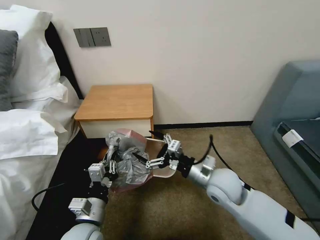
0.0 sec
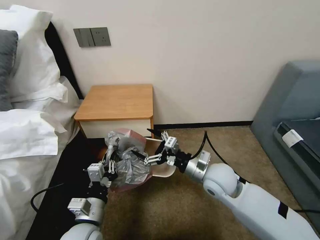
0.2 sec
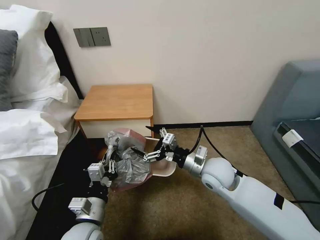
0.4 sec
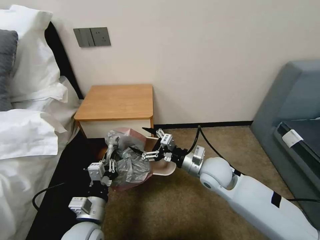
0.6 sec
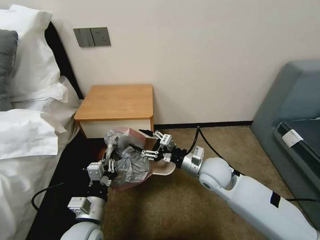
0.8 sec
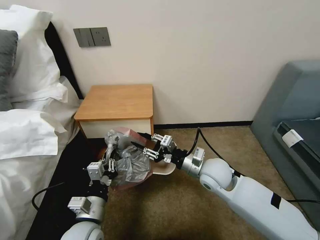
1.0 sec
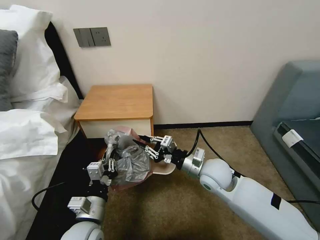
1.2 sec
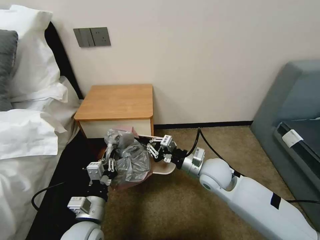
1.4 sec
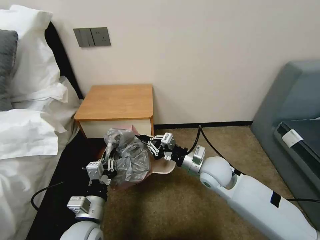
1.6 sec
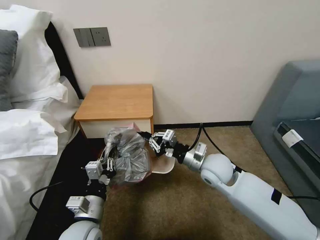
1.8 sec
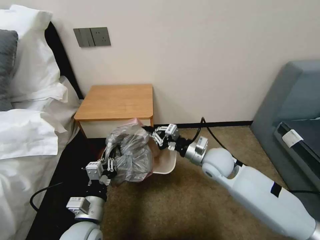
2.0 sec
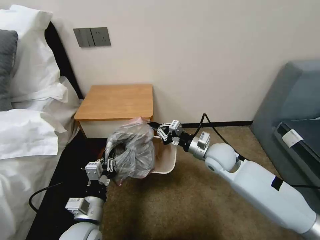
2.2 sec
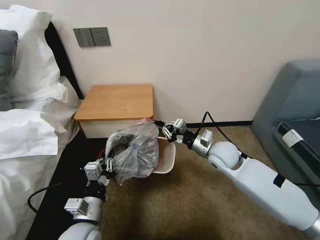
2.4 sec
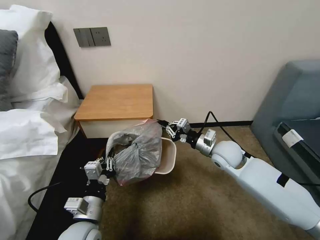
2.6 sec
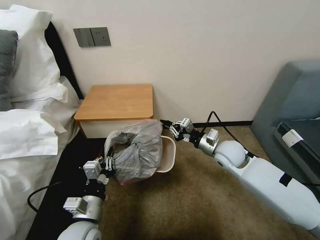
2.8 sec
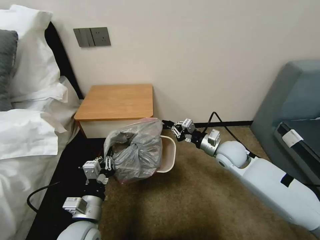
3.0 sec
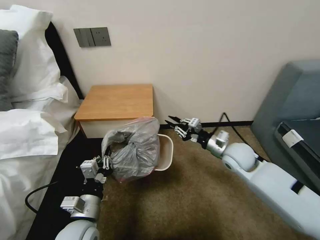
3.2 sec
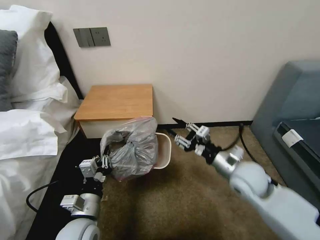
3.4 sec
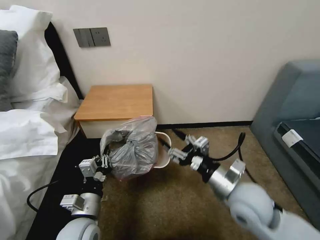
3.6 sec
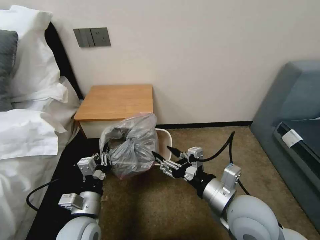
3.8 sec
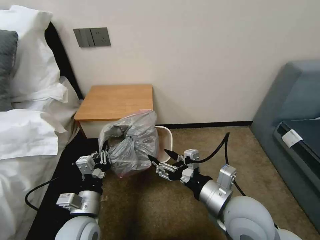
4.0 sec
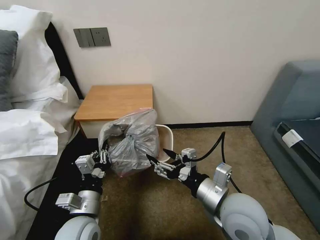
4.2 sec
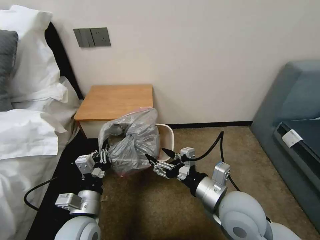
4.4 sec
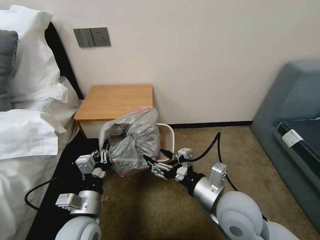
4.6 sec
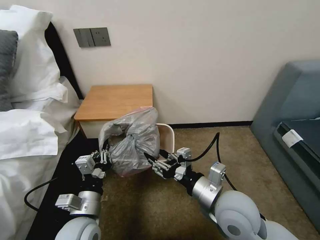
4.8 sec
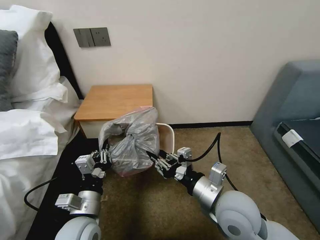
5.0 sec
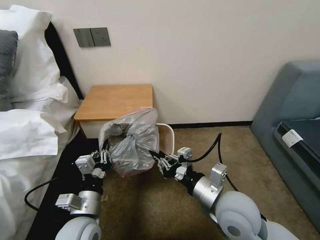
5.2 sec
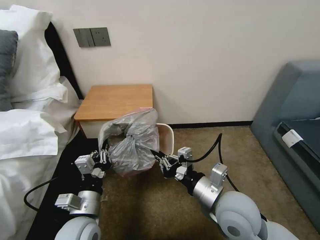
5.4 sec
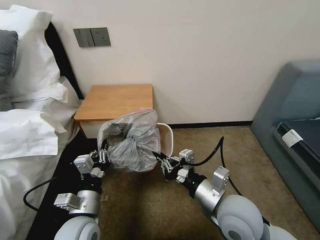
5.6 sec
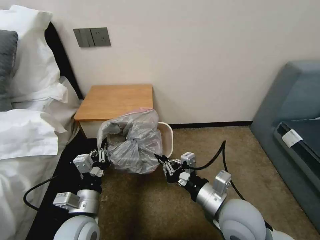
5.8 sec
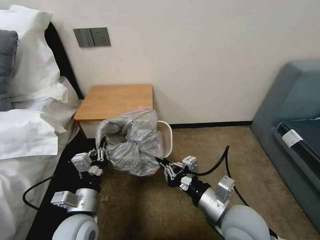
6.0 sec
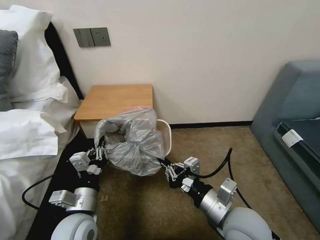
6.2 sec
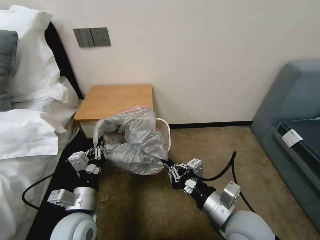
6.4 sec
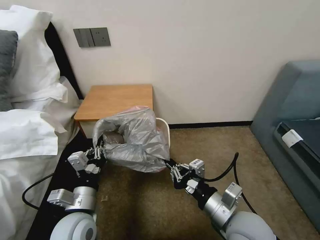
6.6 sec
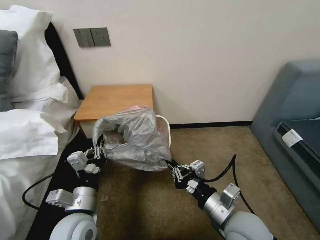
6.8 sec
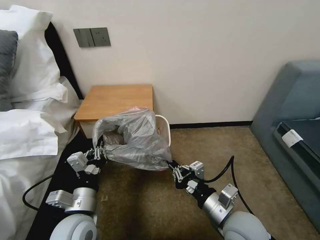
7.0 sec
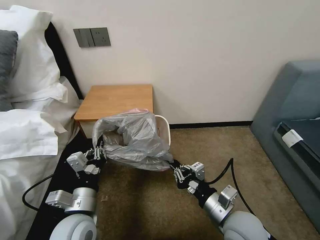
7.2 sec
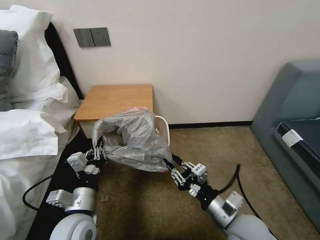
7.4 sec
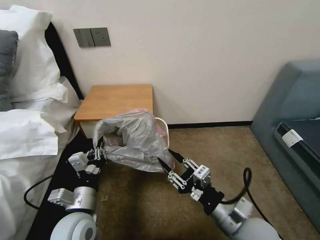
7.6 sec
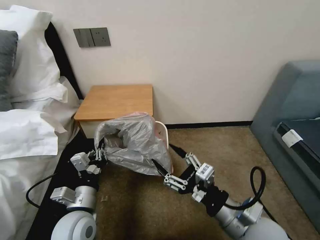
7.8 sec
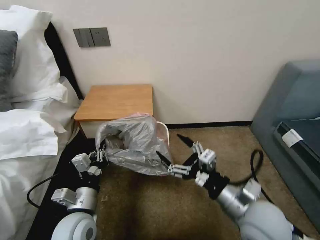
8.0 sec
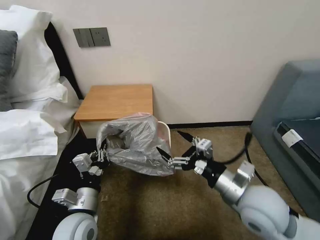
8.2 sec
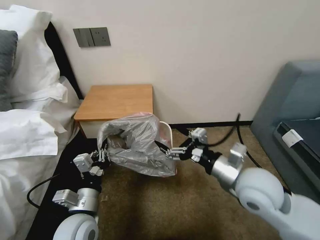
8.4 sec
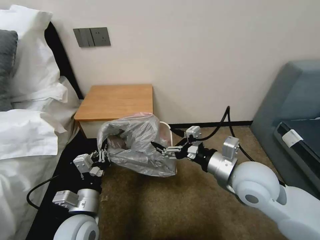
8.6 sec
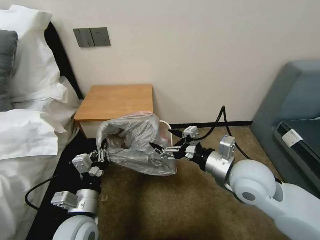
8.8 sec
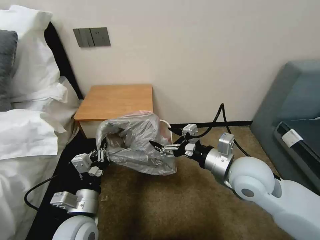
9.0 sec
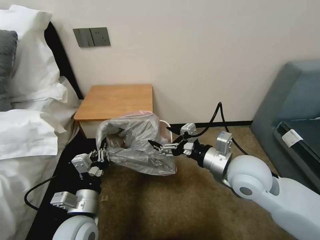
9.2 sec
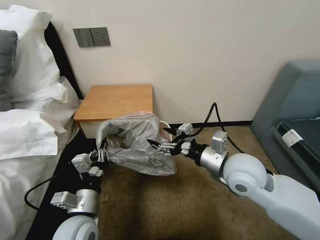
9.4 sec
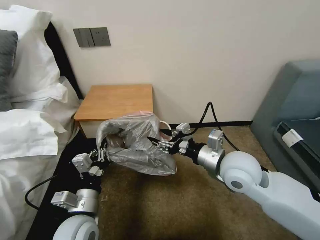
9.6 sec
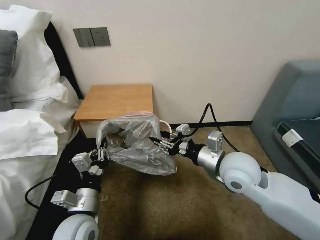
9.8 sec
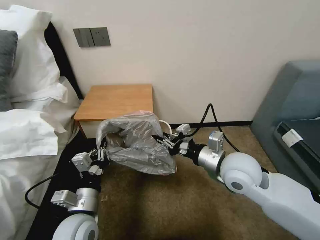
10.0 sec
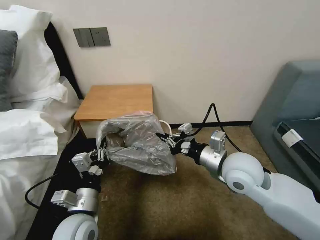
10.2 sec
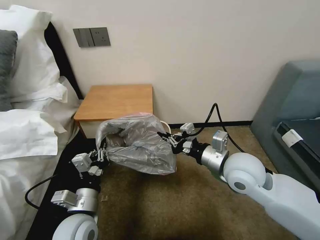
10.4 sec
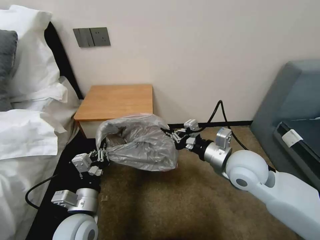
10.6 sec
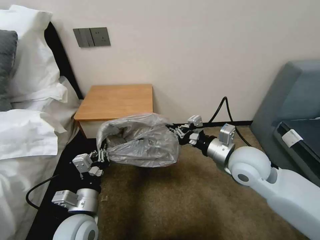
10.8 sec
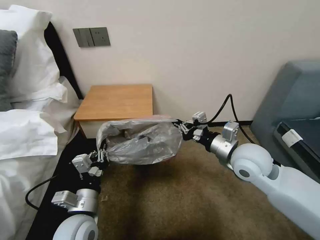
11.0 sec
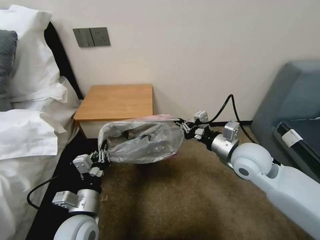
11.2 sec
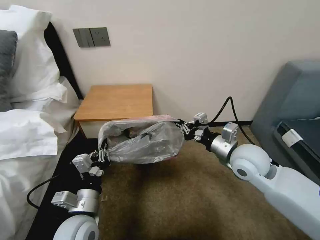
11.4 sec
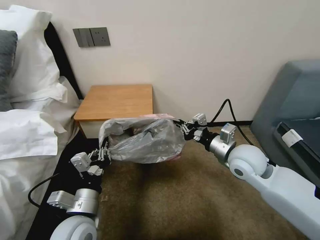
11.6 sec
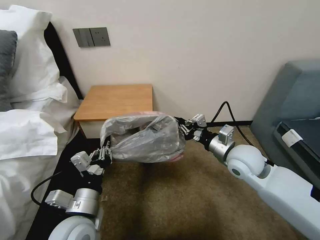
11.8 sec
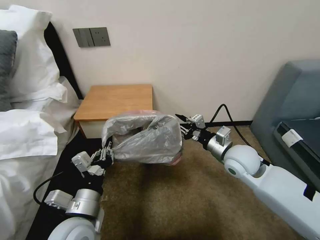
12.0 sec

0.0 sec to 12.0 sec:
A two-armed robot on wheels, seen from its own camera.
Task of the whole recording: Pick up the garbage bag from the table and place it over the trash can.
0.0 sec to 1.6 sec: The right gripper closes up.
1.6 sec to 3.0 sec: The right gripper is displaced to the right and forward by approximately 10 cm.
3.0 sec to 4.4 sec: The right gripper goes some 20 cm backward, and opens up.
4.4 sec to 6.0 sec: The right gripper closes up.
6.0 sec to 7.6 sec: The right gripper opens.
7.6 sec to 9.0 sec: The right gripper shifts approximately 15 cm forward and upward, and opens.
9.0 sec to 10.4 sec: The right gripper closes up.
10.4 sec to 12.0 sec: The right gripper moves forward, some 5 cm, and opens.

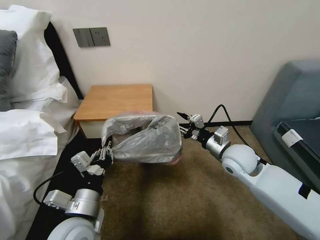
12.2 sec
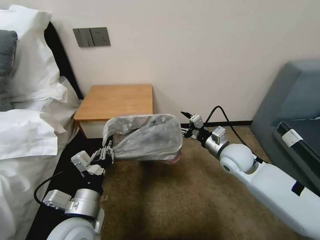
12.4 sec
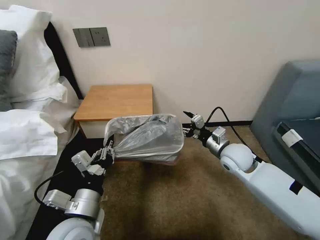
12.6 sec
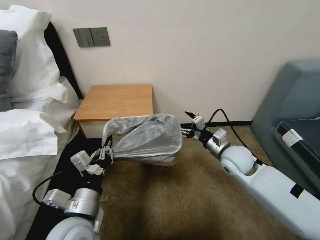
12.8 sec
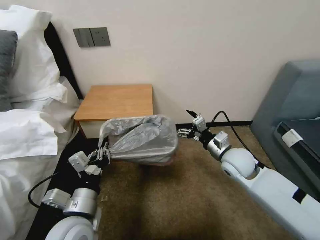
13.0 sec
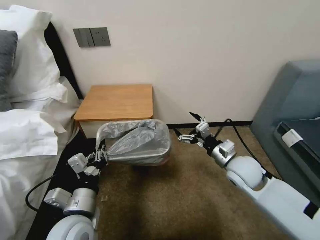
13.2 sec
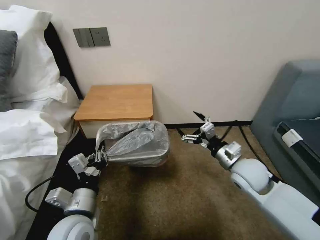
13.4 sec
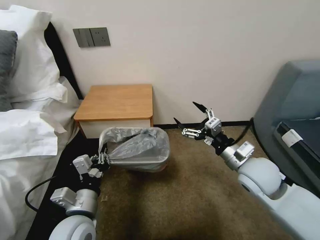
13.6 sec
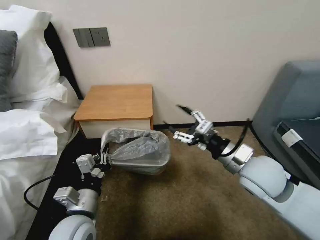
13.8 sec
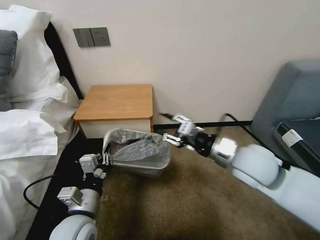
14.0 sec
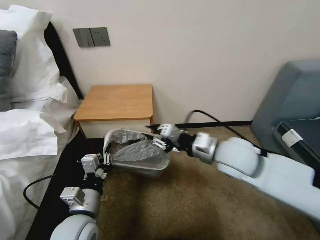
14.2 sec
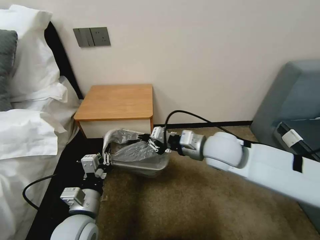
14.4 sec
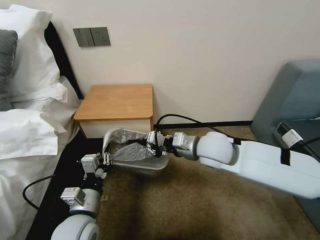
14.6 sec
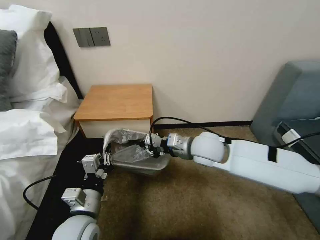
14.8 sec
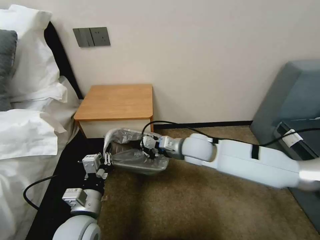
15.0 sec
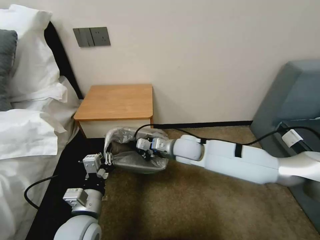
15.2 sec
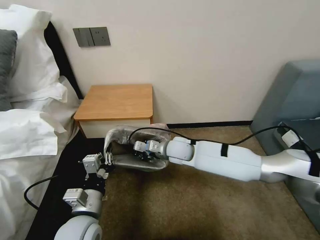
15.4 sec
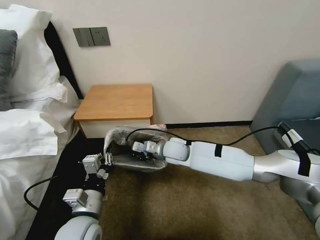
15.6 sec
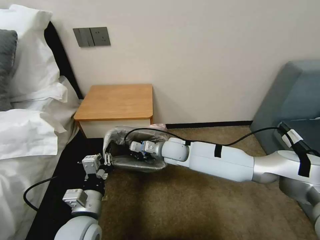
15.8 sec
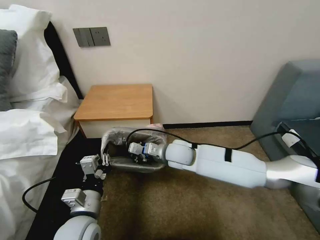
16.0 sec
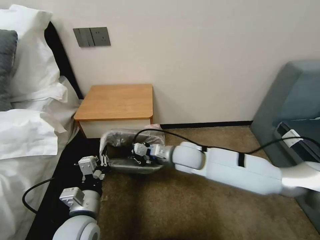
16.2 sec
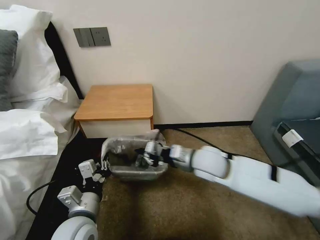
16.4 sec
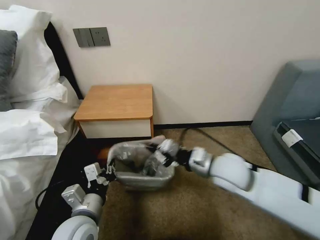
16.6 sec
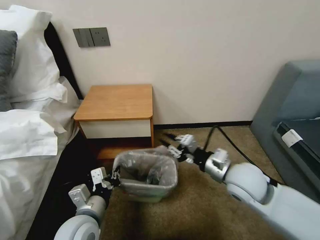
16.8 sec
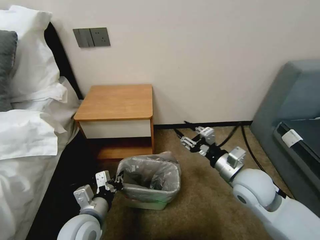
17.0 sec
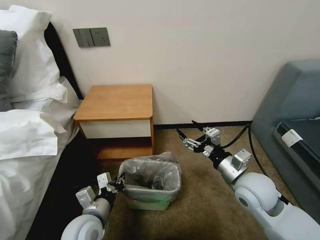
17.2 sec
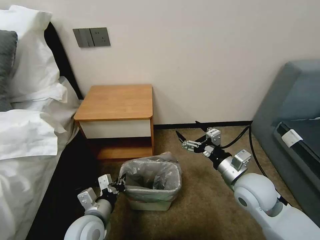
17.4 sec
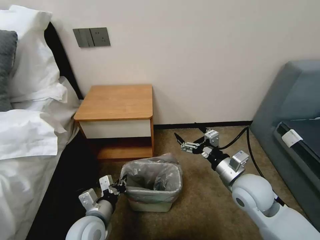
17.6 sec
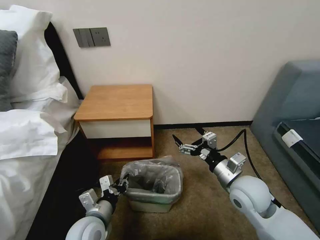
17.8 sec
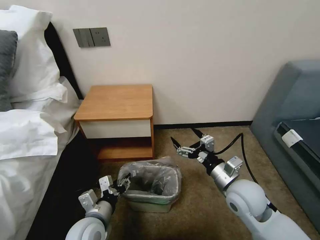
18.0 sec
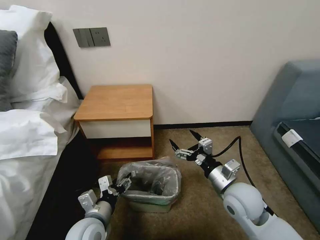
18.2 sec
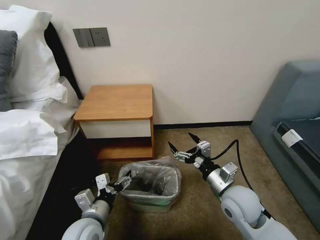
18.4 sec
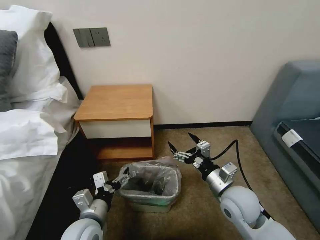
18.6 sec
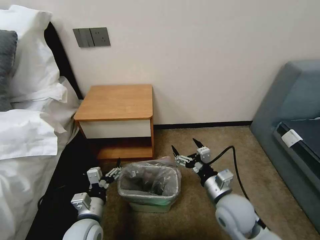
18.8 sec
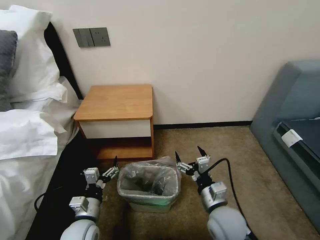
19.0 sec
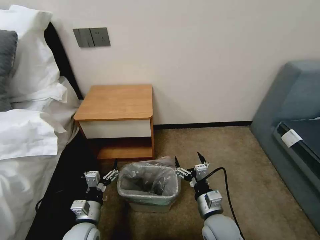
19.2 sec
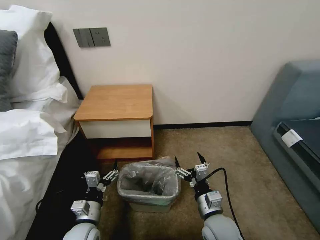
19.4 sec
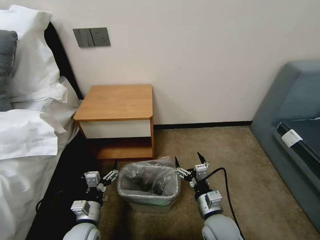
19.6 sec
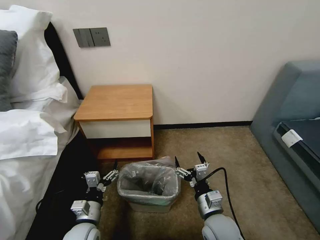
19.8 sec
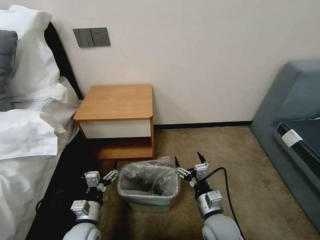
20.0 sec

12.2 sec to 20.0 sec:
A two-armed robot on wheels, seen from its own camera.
Task of the whole recording: Pick up the garbage bag from the table and place it over the trash can.
12.2 sec to 13.8 sec: The right gripper moves backward and upward, about 10 cm.
13.8 sec to 15.4 sec: The right gripper moves to the left, forward and downward, about 25 cm, and closes its fingers.
15.4 sec to 16.8 sec: The right gripper travels to the right and backward by about 20 cm.
16.8 sec to 18.4 sec: The right gripper travels downward by roughly 5 cm, and opens; the left gripper opens up.
18.4 sec to 20.0 sec: The right gripper heads downward, backward and to the left, covering approximately 10 cm; the left gripper goes roughly 10 cm downward.

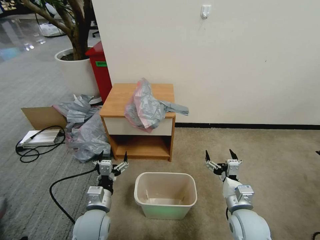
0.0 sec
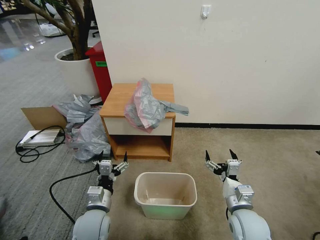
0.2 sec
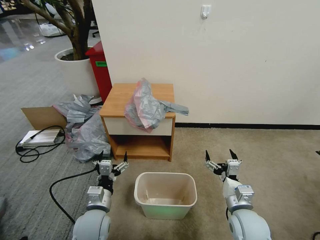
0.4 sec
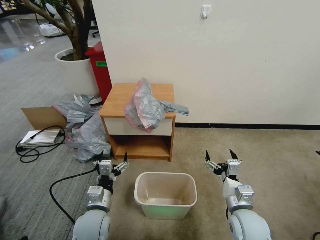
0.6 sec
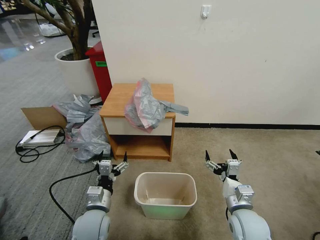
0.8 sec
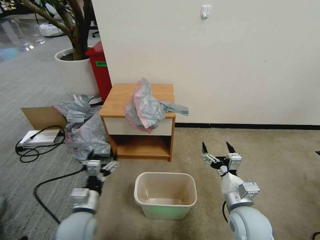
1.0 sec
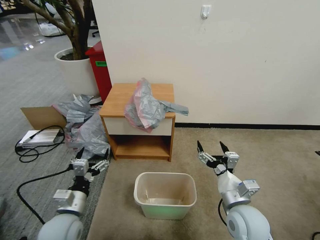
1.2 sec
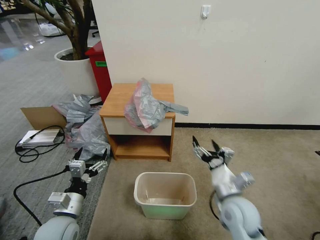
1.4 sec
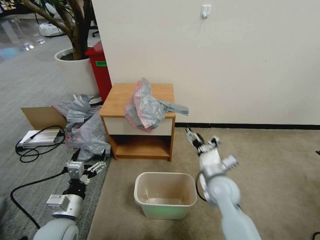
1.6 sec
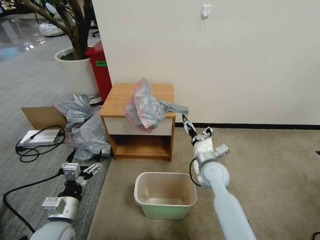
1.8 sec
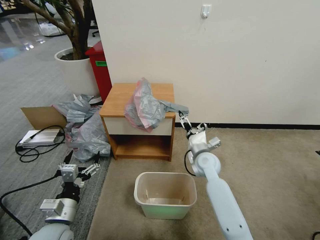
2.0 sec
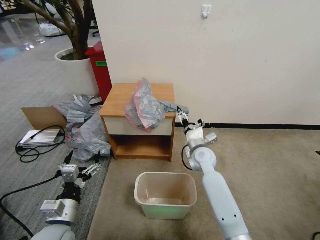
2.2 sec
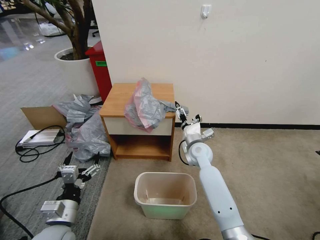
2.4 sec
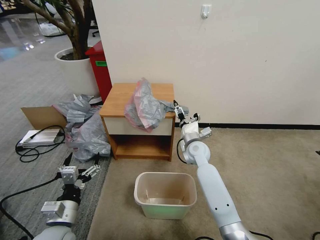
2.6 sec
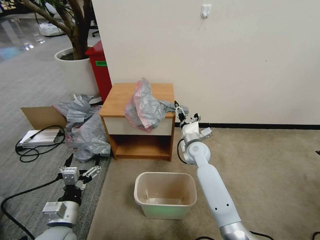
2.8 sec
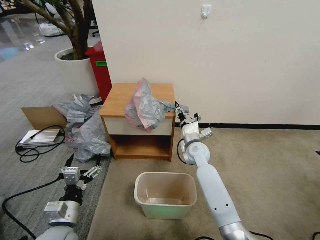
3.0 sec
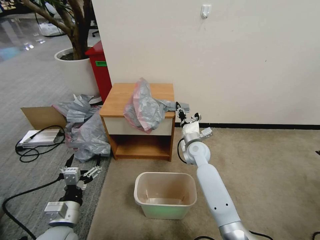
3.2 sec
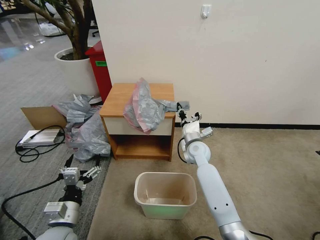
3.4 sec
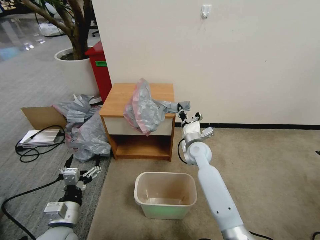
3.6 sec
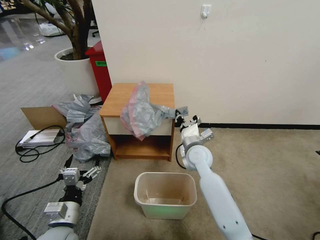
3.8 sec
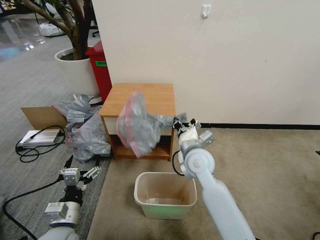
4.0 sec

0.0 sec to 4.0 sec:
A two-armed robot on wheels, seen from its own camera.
Task of the whole recording: Pick up the garbage bag from the table and place it over the trash can.
1.4 sec to 2.6 sec: The right gripper goes roughly 25 cm forward.
2.6 sec to 4.0 sec: The right gripper shifts about 15 cm backward and upward, and closes.
